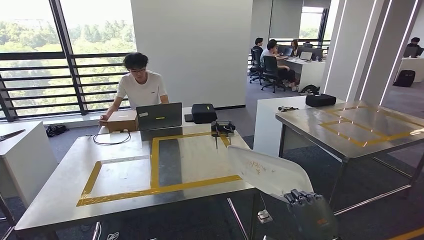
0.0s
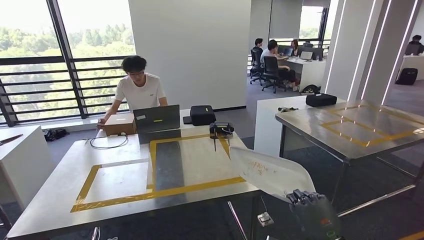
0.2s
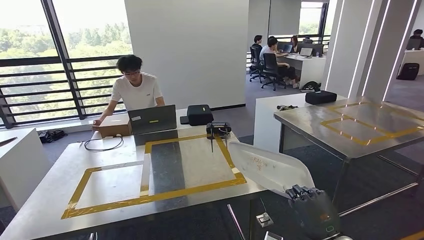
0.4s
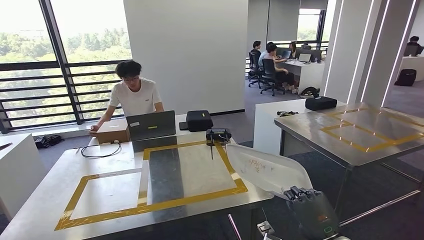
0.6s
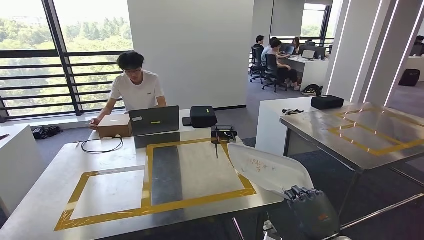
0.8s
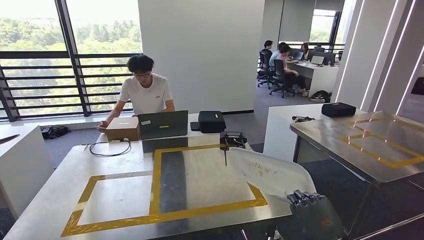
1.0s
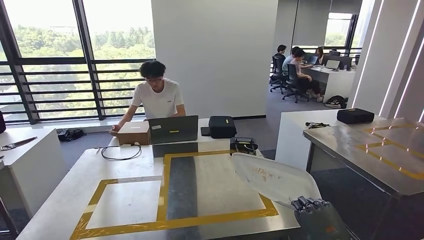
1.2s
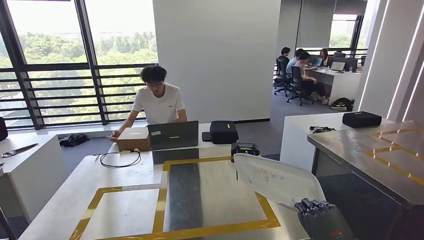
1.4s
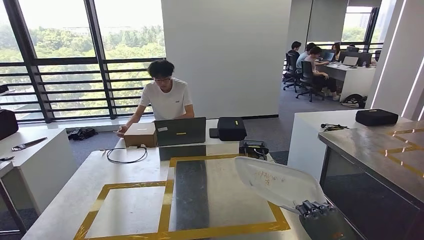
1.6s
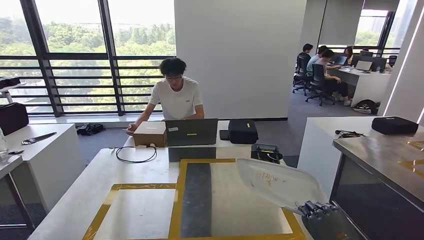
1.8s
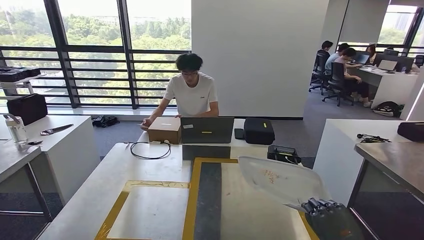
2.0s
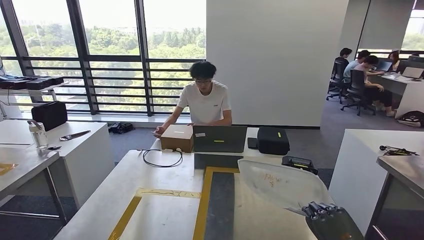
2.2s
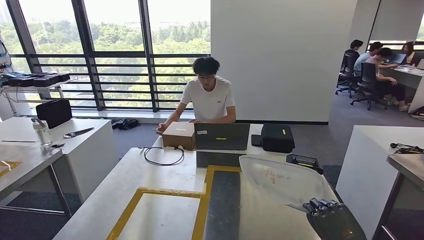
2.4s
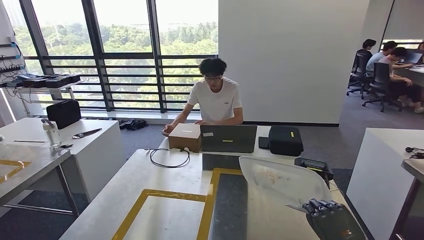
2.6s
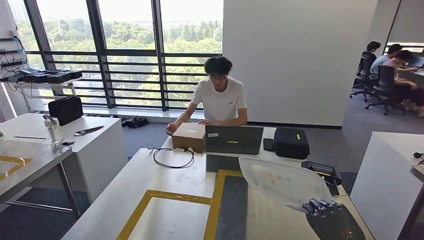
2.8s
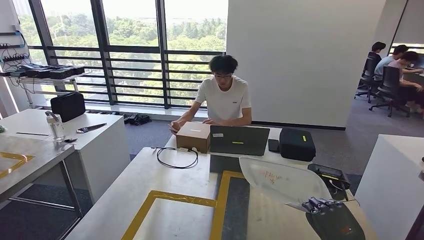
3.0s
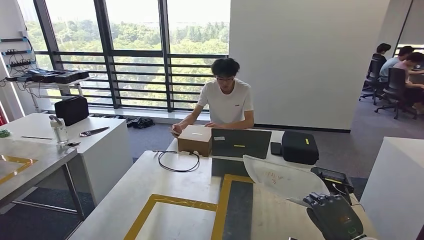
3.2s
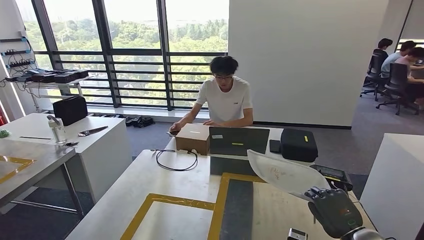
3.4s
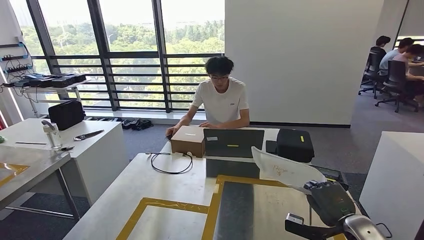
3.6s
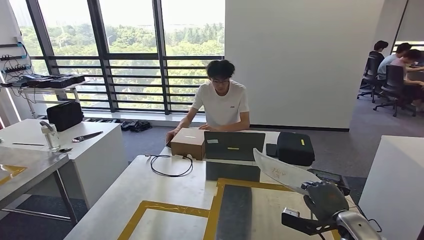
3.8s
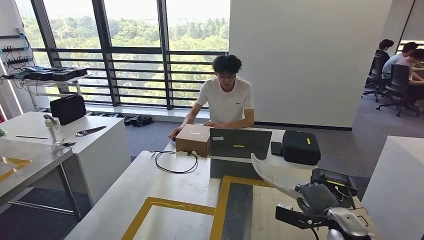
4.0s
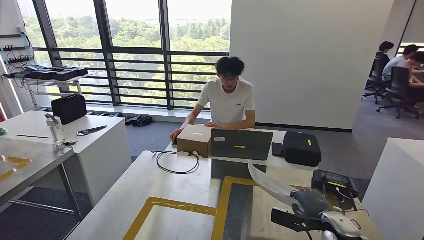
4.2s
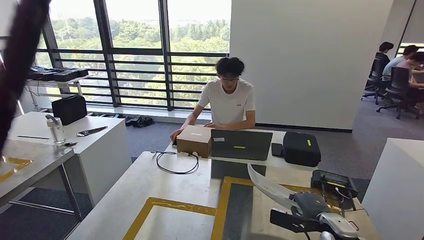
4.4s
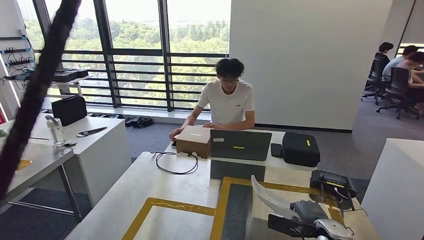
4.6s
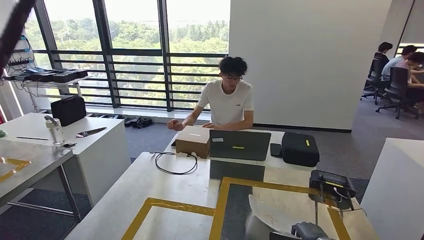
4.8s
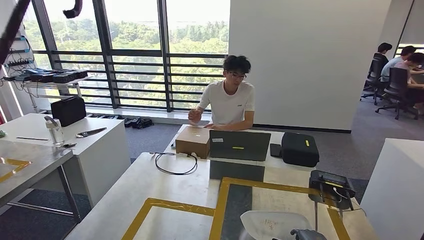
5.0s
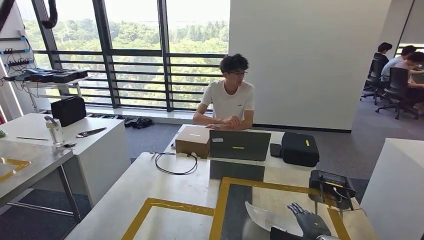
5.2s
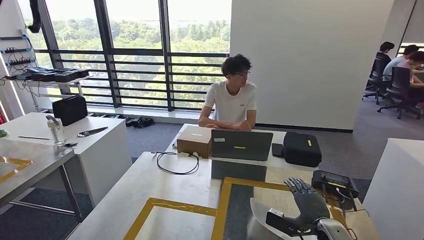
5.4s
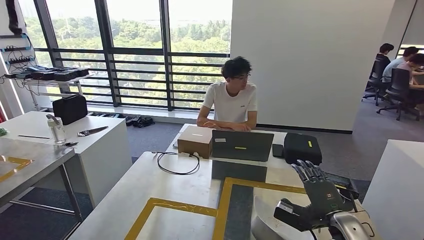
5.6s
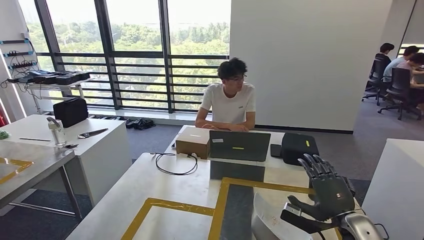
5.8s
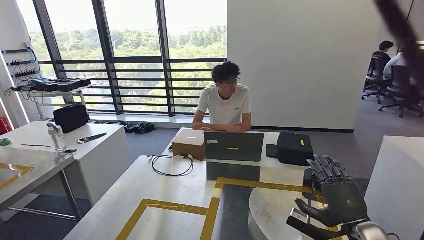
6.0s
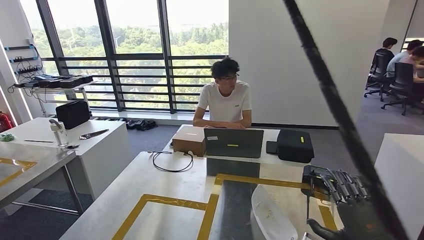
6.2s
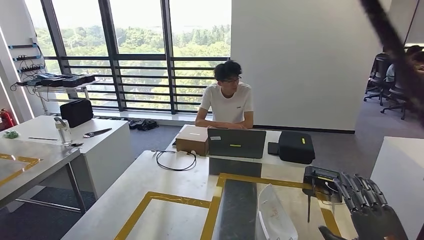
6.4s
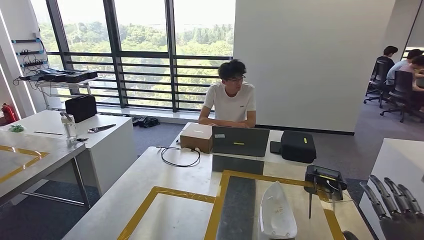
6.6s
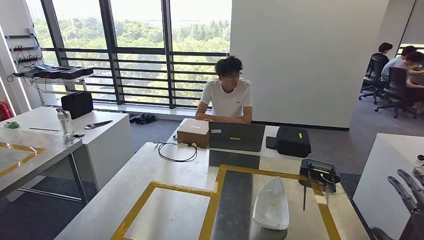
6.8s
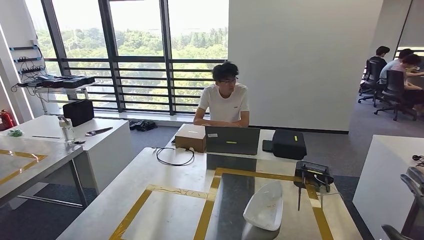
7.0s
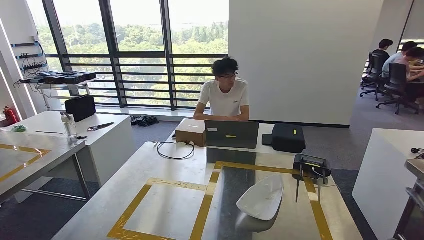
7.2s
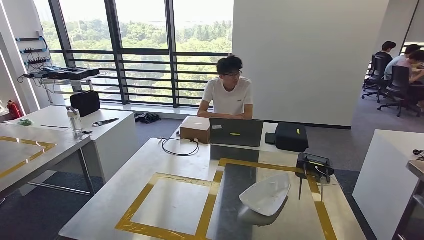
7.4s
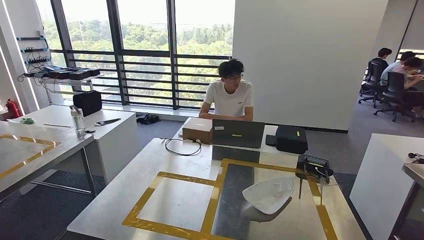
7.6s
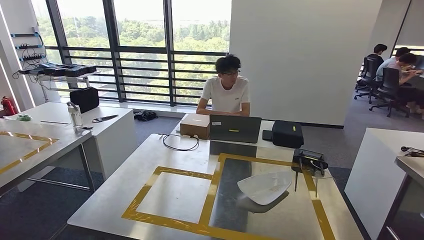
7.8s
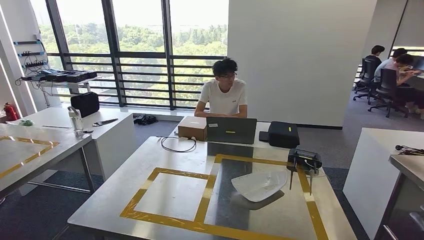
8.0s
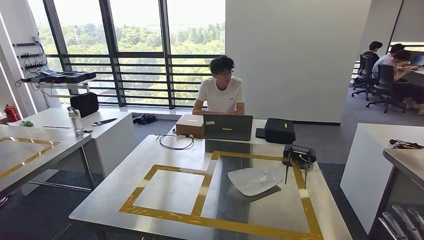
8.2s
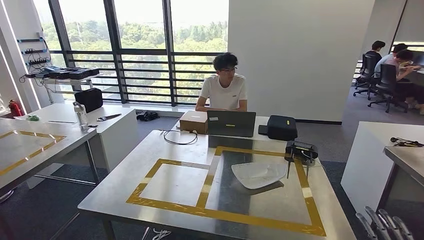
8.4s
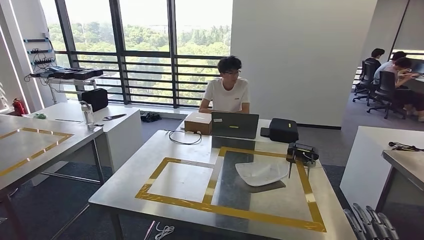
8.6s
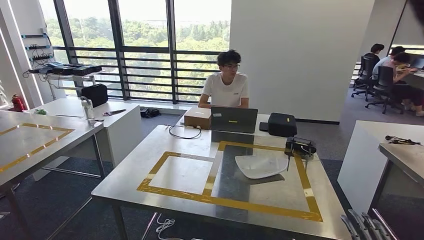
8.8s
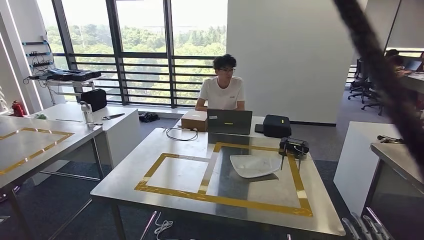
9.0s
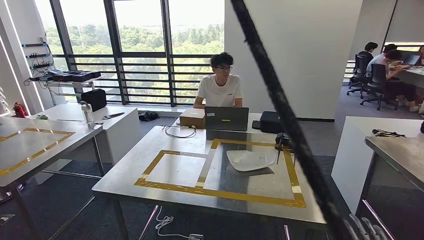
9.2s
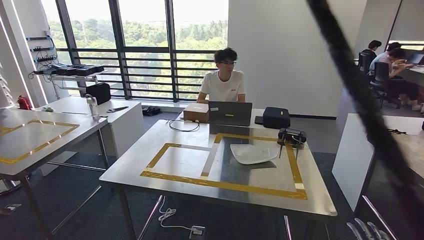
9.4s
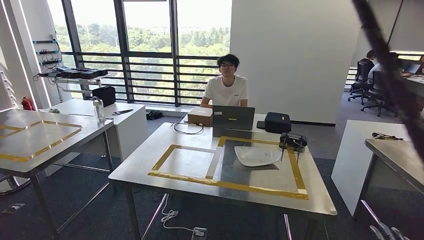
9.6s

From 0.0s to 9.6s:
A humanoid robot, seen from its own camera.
Step, from 0.0s to 6.0s: Insert the small component into the corresponding slot on the workbench.

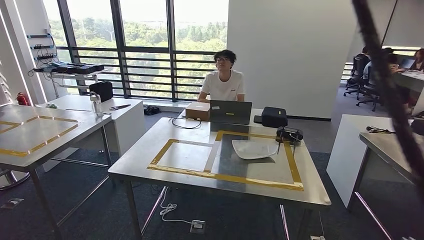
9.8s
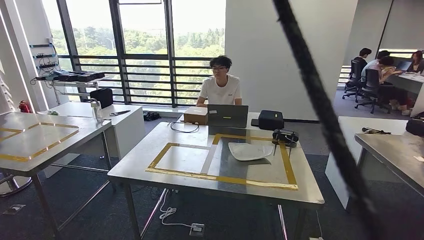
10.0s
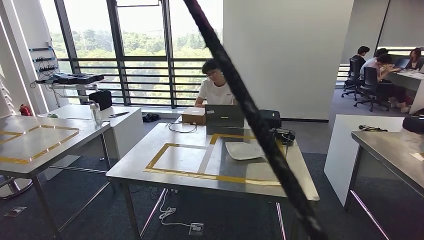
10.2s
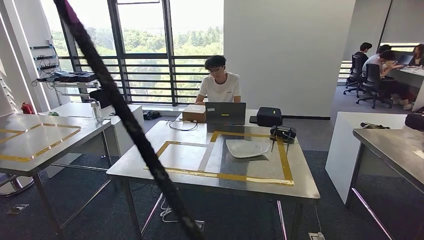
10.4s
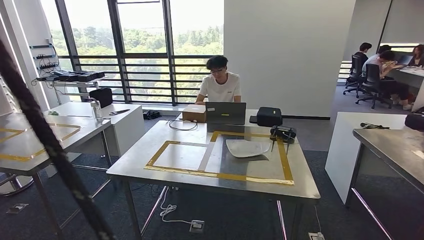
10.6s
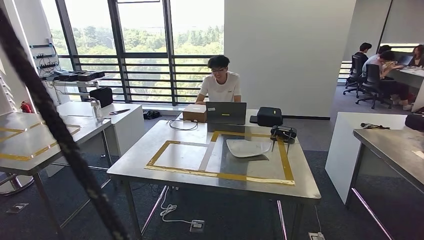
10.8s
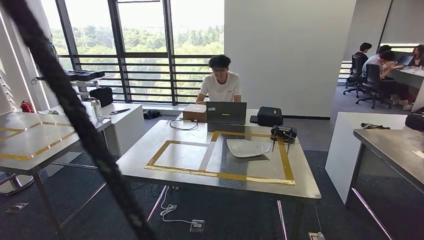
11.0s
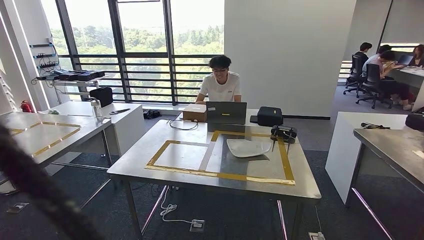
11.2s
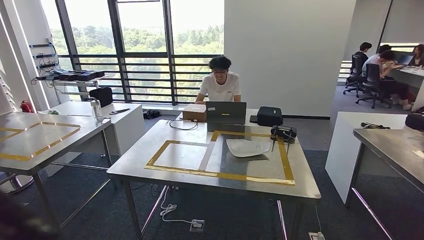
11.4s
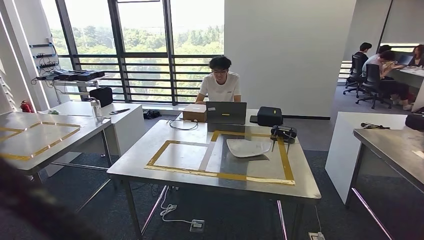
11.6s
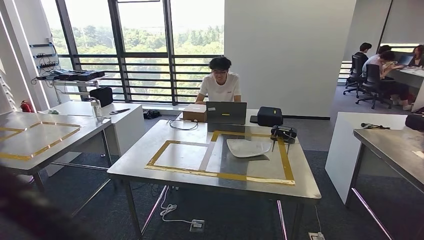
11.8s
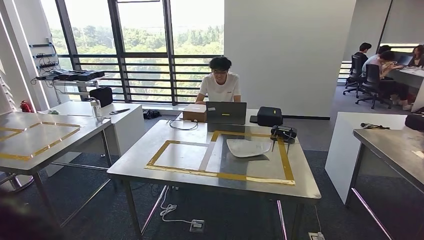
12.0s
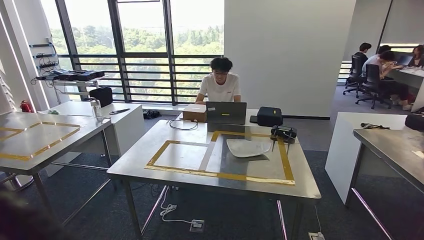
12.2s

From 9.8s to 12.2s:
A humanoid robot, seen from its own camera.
Step, from 9.8s to 12.2s: Return to the initial position at the workbench.

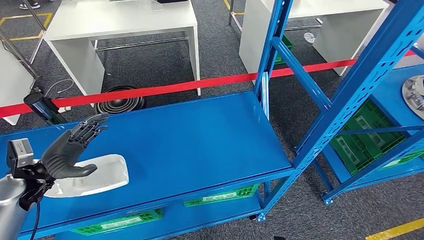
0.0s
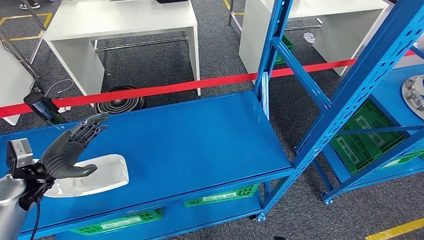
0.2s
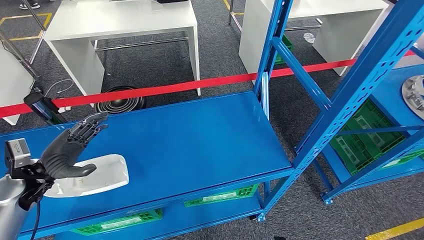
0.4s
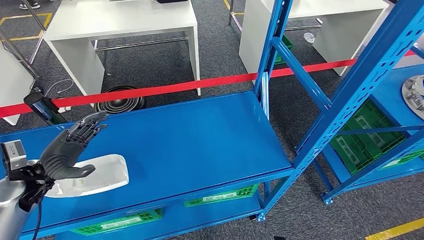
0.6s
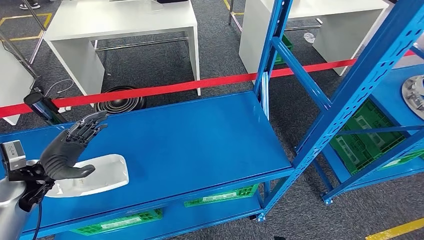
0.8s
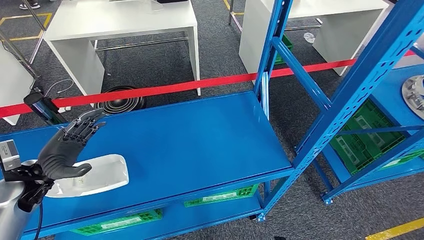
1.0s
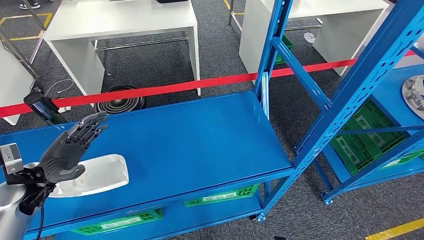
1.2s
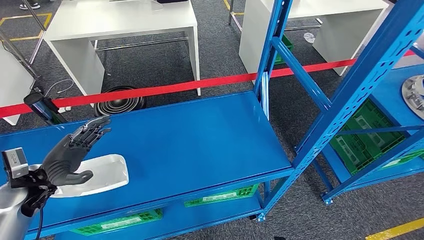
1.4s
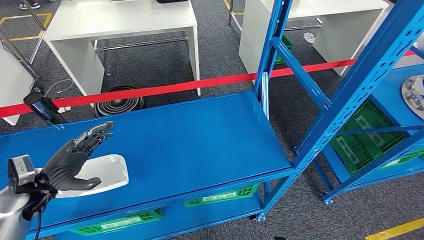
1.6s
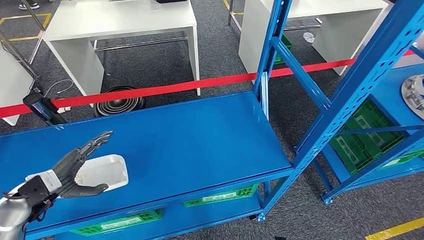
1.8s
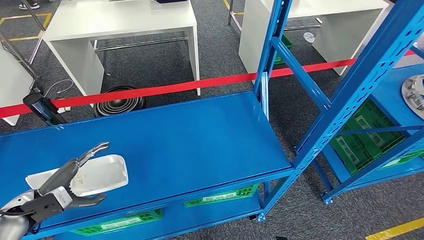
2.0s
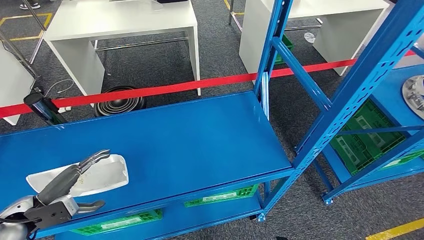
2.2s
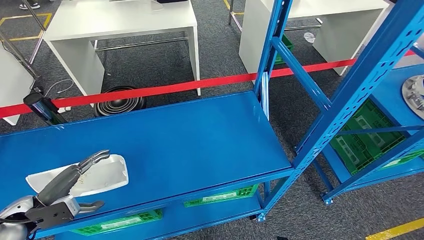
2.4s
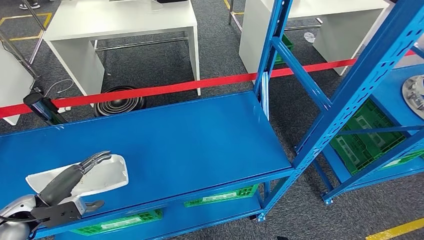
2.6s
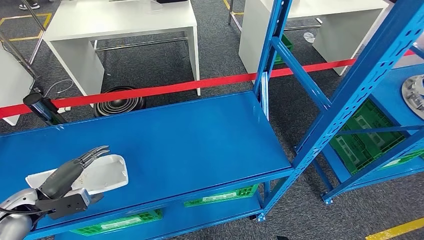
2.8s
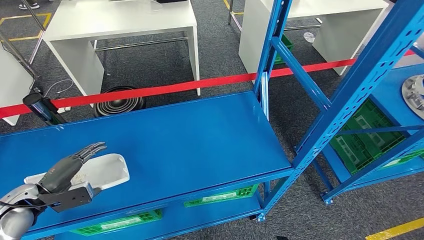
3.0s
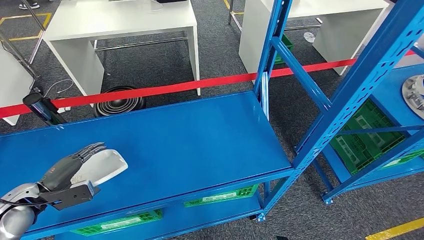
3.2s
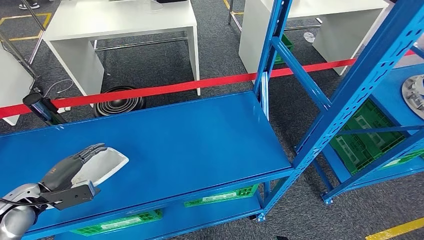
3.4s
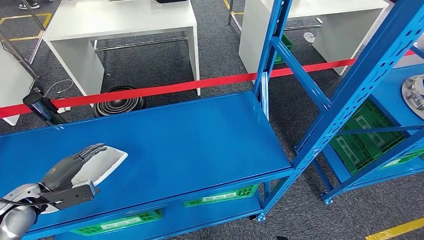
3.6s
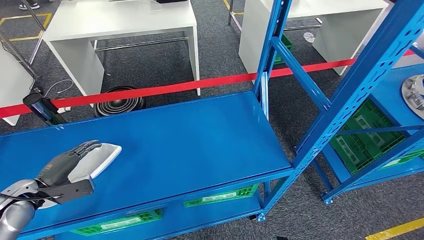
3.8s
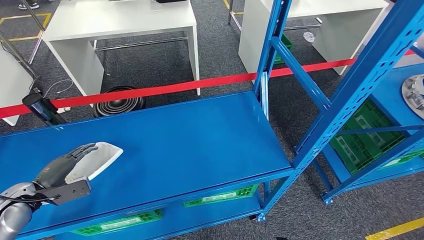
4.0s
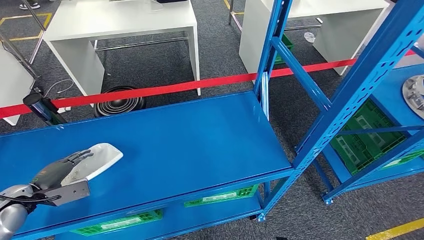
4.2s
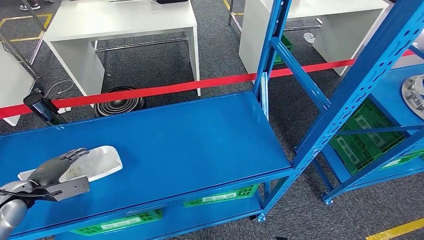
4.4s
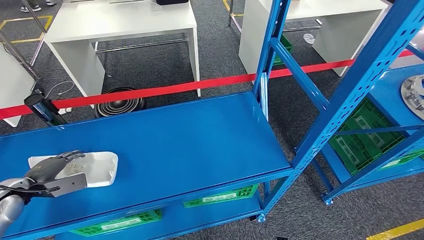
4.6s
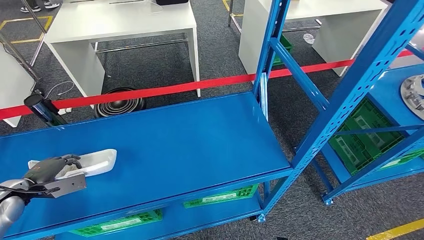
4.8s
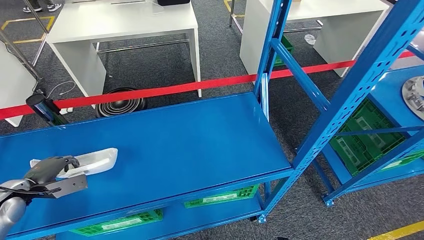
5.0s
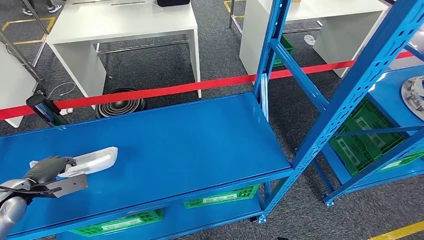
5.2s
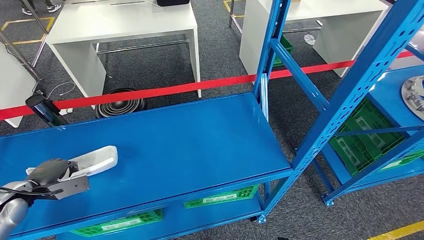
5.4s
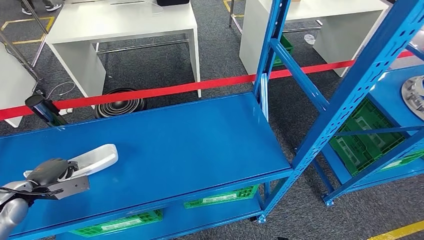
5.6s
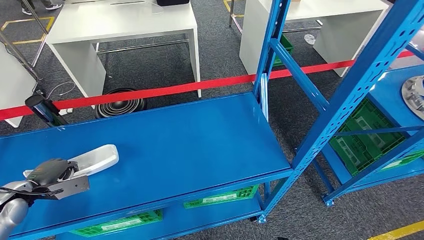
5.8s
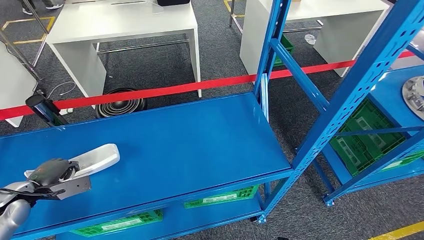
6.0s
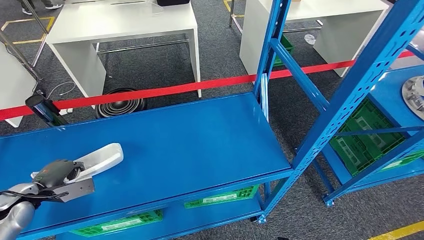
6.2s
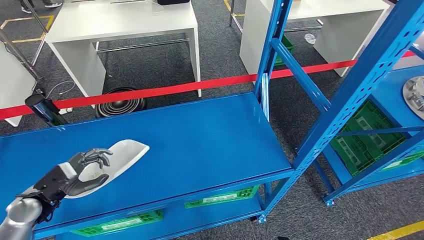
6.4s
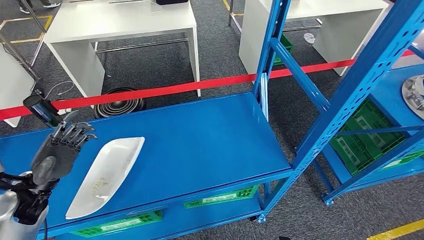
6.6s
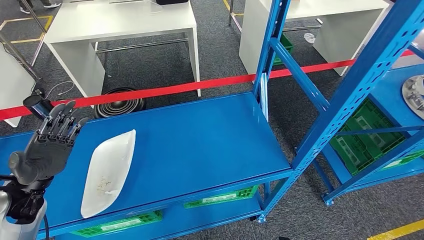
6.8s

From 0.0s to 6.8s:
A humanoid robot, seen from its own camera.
From 0.0s to 1.4s: The hands make only small movements.
From 1.4s to 2.8s: The left hand shifts by some 5 cm.
From 2.8s to 4.0s: There are only small adjustments of the hands.
From 5.4s to 6.8s: The left hand heads to the right and upward, covering some 10 cm.
